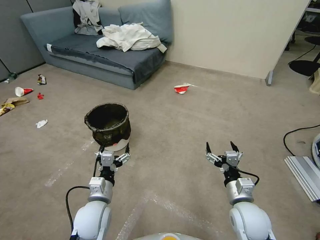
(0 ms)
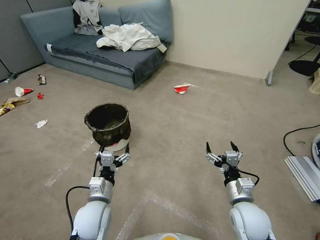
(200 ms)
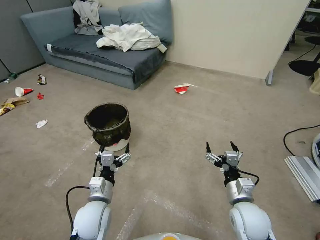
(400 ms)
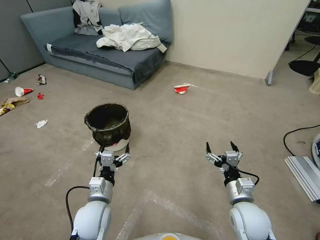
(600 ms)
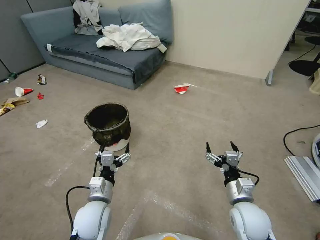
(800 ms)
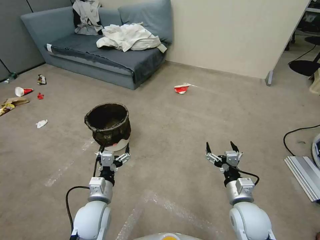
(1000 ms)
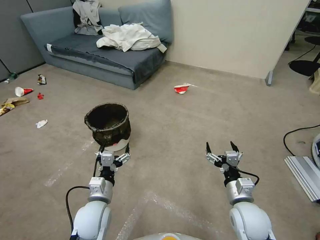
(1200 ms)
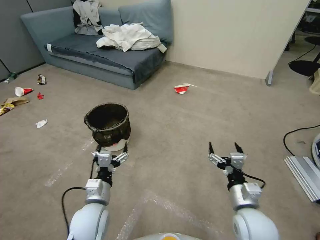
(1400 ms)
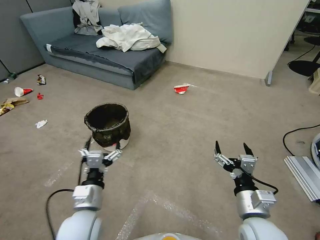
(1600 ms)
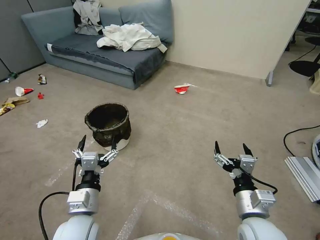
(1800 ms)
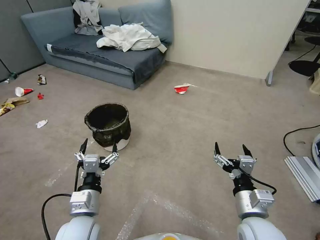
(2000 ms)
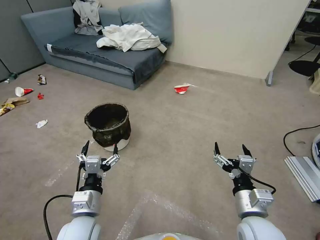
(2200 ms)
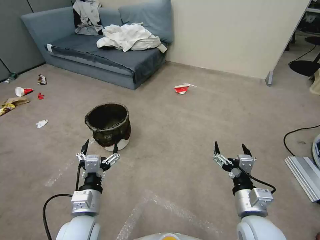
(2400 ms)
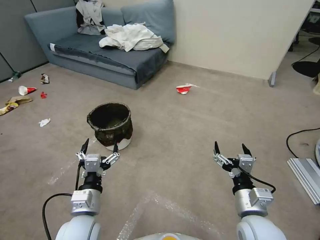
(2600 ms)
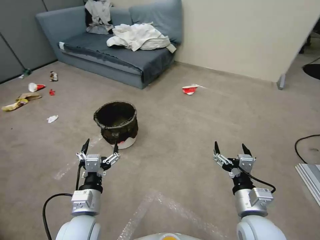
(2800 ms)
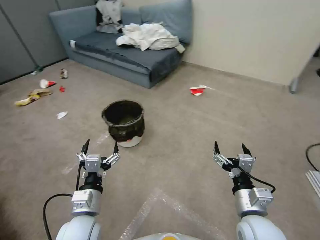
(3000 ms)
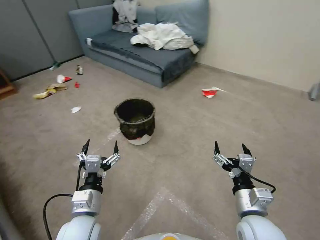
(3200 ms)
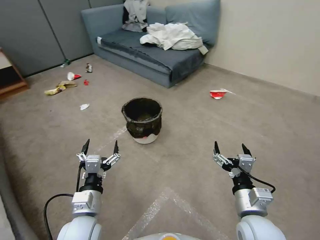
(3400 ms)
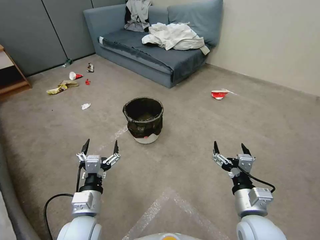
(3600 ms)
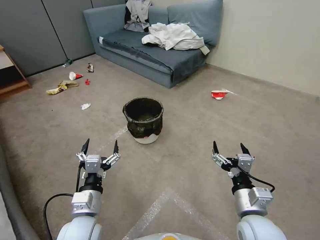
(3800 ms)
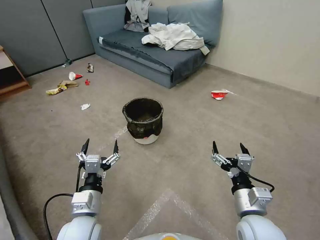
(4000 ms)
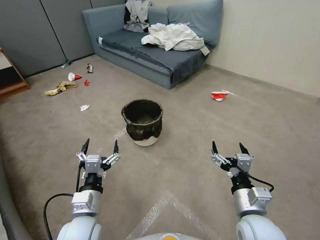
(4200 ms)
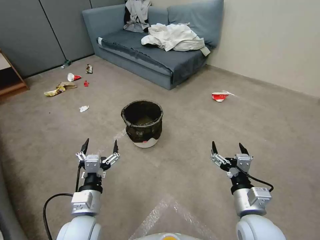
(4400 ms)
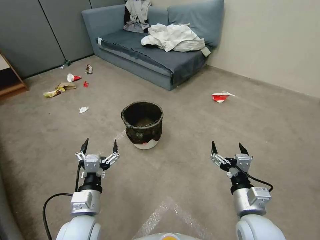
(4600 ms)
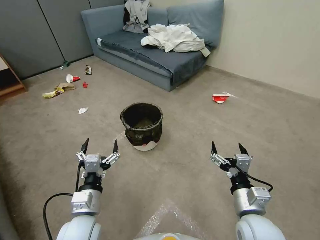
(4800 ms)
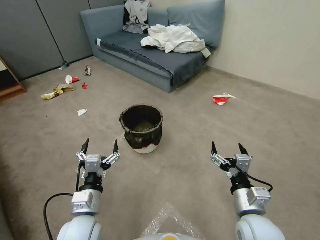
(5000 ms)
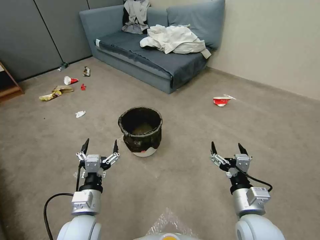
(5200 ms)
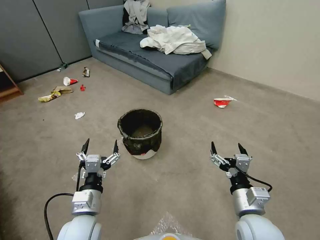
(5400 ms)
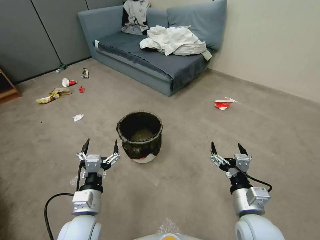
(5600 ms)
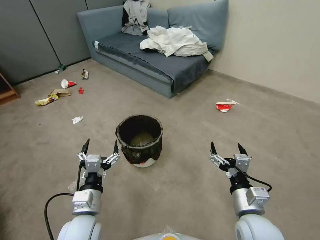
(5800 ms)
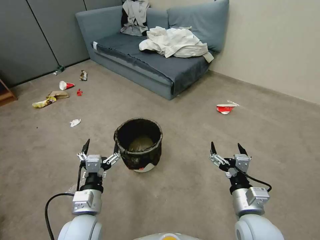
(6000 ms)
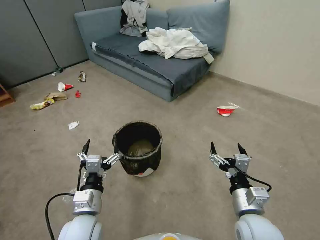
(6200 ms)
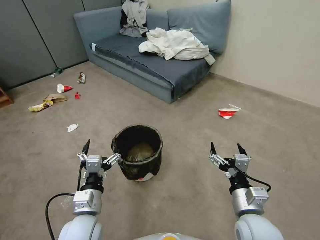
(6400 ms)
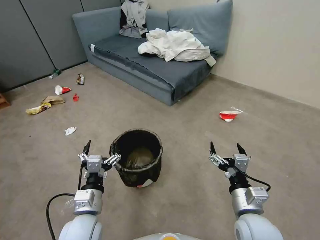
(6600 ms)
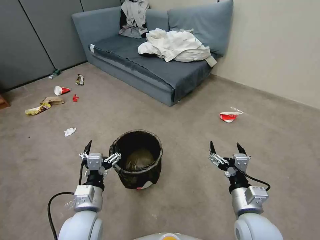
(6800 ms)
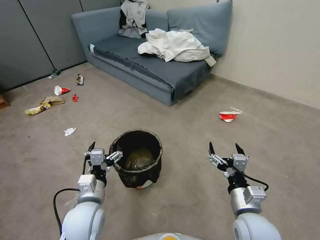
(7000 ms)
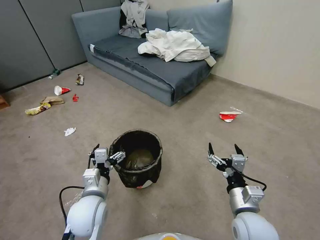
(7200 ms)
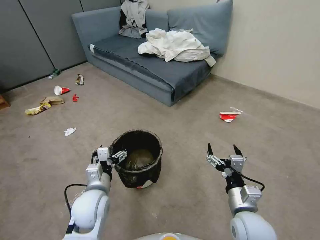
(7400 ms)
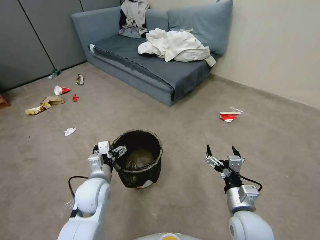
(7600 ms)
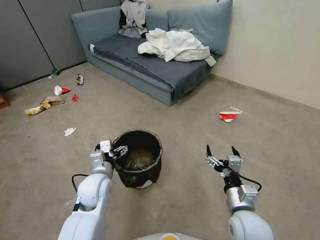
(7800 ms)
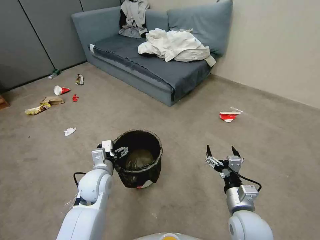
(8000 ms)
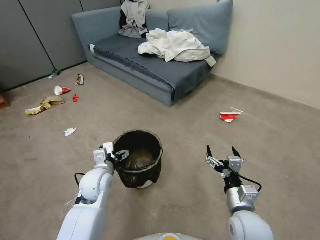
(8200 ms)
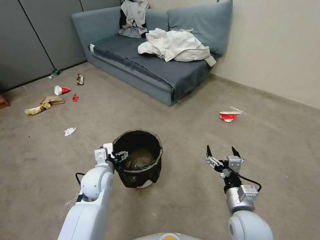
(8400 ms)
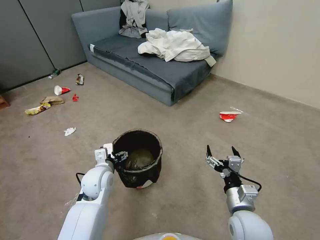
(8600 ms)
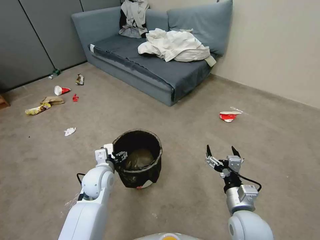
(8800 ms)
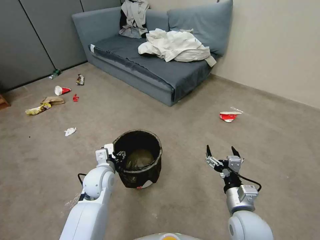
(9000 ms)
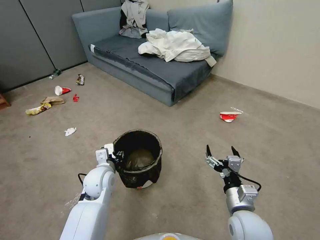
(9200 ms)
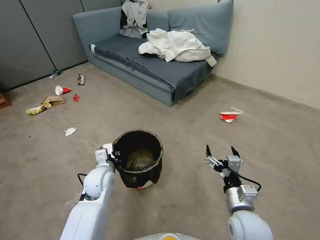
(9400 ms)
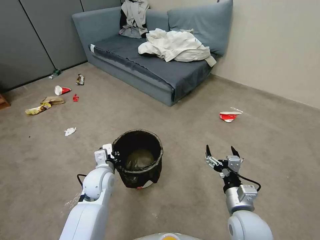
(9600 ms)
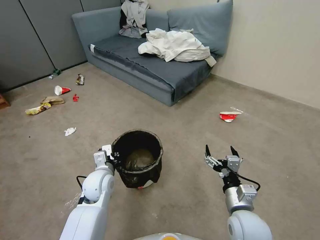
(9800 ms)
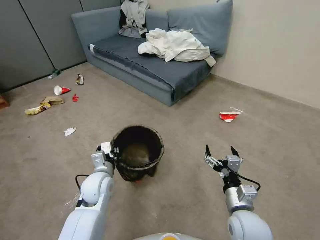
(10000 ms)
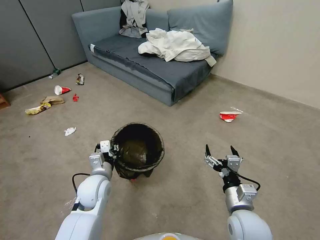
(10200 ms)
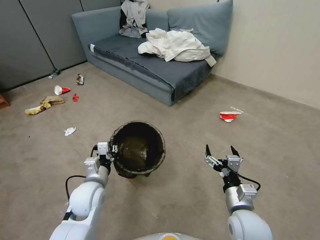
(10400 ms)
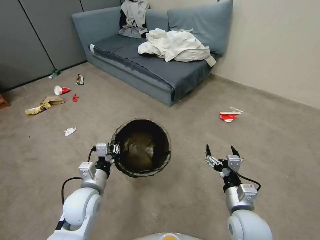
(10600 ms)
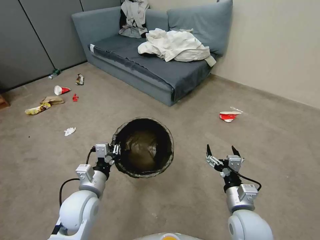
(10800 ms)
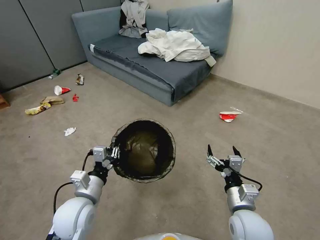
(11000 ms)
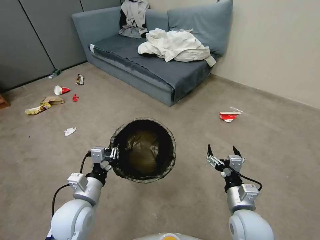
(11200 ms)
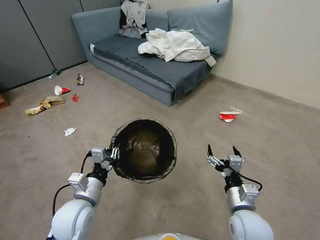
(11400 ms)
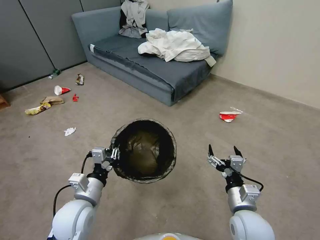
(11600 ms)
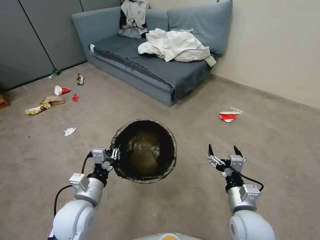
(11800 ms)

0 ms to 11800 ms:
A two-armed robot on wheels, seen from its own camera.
Task of the whole recording: Pick up the trash can from the floor.
1400 ms to 3000 ms: The left gripper shifts by roughly 5 cm.
6000 ms to 7400 ms: The left gripper is displaced forward by about 5 cm.
7400 ms to 8800 ms: The left gripper heads forward, covering roughly 5 cm.
8800 ms to 10400 ms: The left gripper is displaced backward by about 5 cm, and closes.
10400 ms to 11800 ms: The left gripper shifts some 5 cm backward.

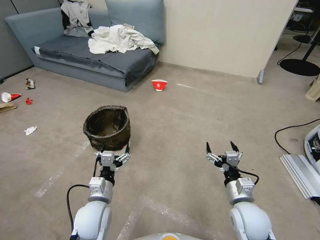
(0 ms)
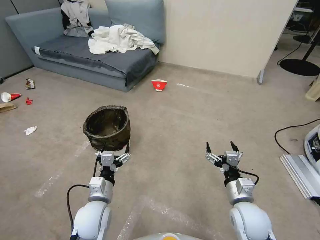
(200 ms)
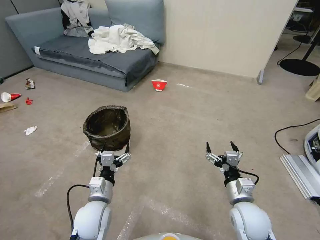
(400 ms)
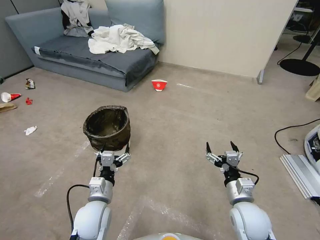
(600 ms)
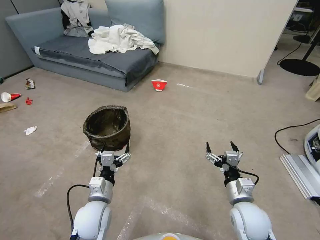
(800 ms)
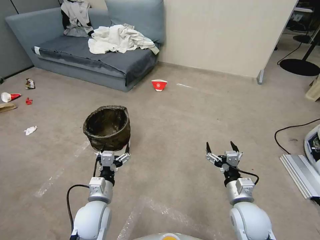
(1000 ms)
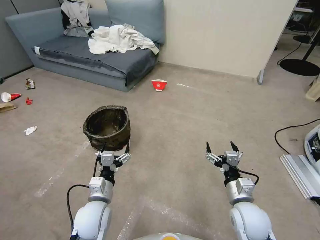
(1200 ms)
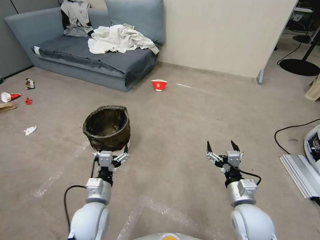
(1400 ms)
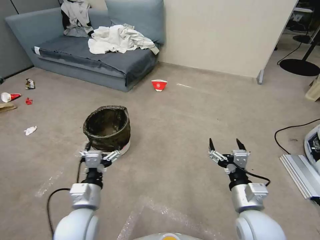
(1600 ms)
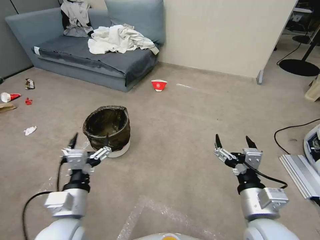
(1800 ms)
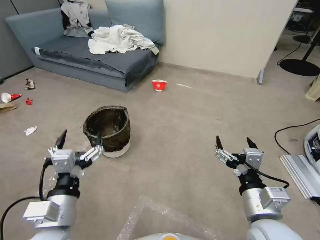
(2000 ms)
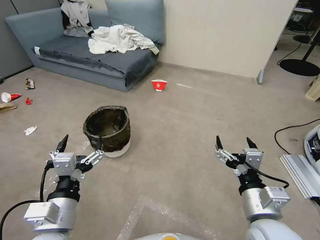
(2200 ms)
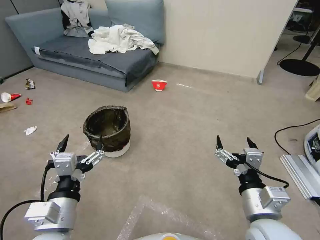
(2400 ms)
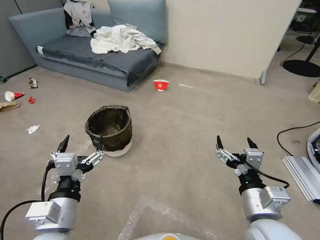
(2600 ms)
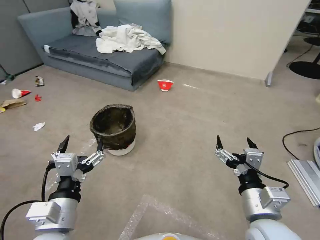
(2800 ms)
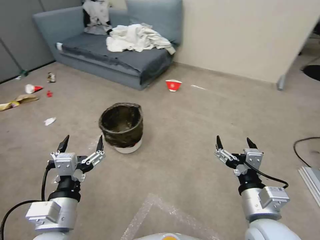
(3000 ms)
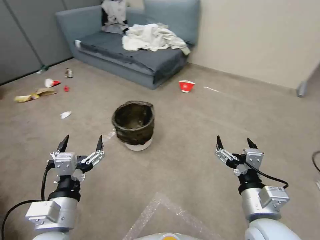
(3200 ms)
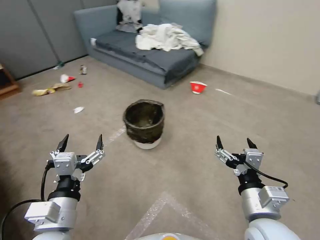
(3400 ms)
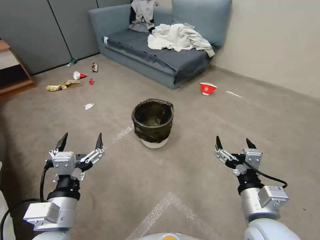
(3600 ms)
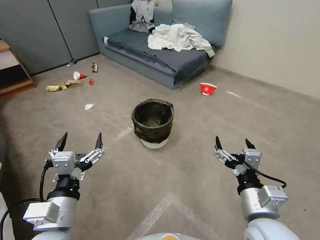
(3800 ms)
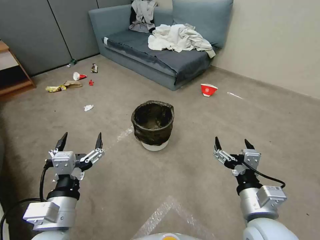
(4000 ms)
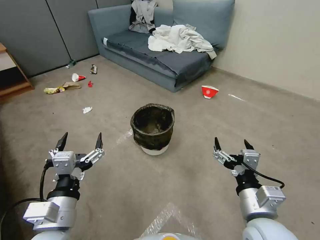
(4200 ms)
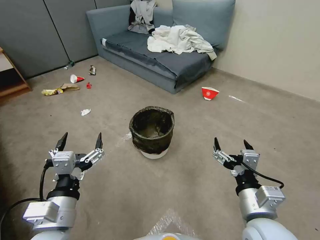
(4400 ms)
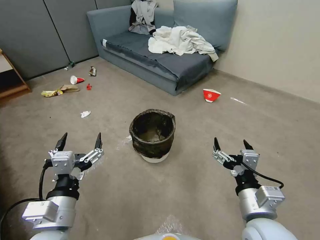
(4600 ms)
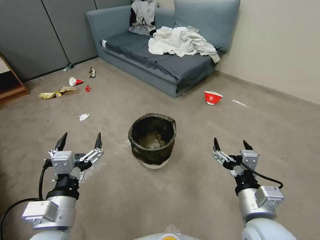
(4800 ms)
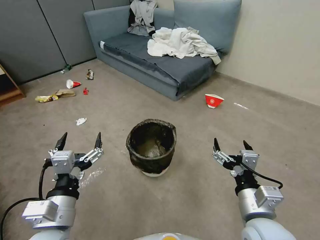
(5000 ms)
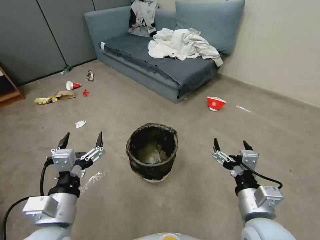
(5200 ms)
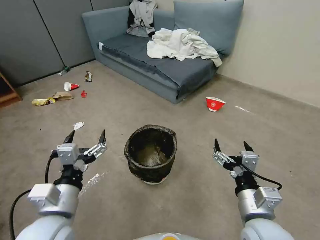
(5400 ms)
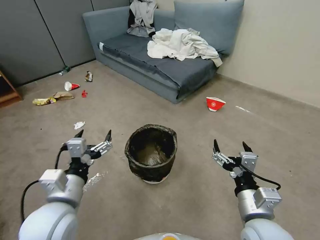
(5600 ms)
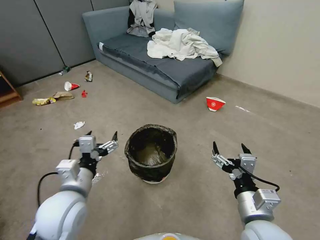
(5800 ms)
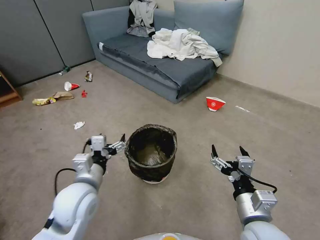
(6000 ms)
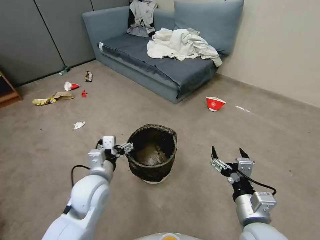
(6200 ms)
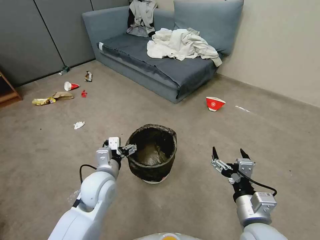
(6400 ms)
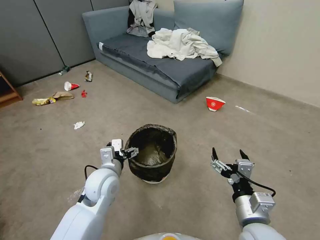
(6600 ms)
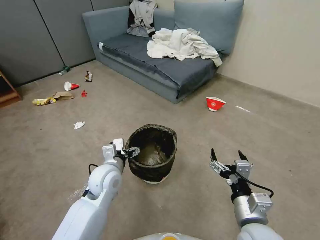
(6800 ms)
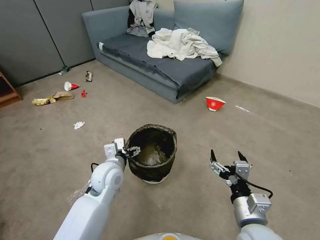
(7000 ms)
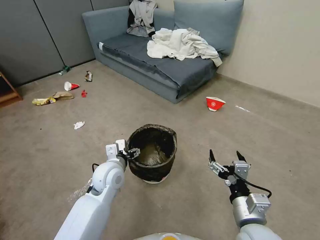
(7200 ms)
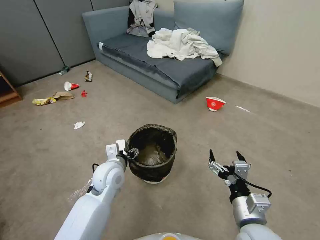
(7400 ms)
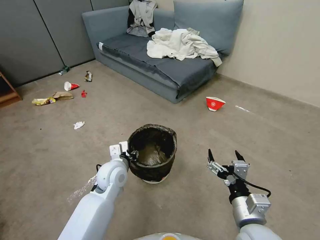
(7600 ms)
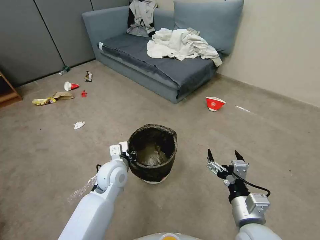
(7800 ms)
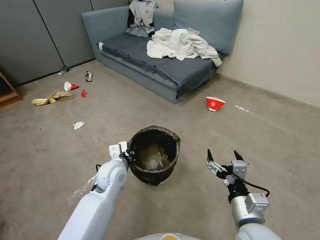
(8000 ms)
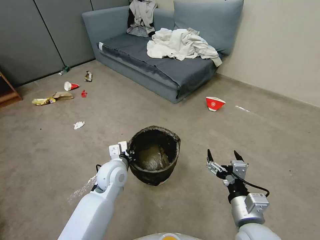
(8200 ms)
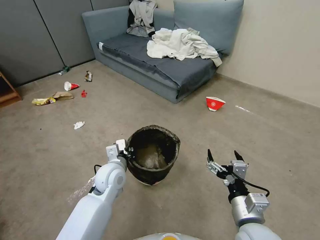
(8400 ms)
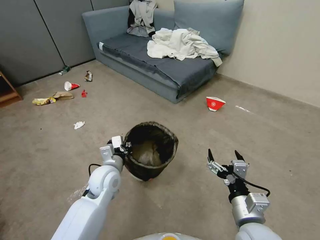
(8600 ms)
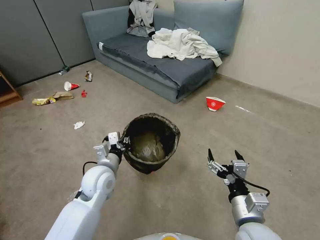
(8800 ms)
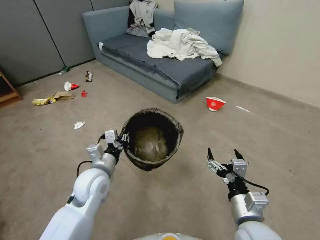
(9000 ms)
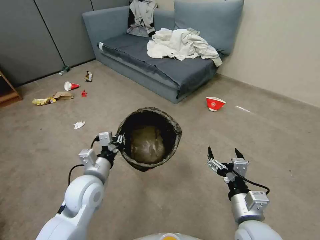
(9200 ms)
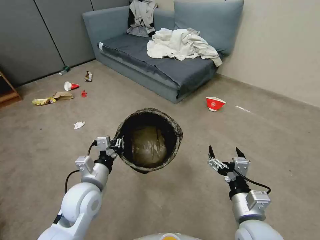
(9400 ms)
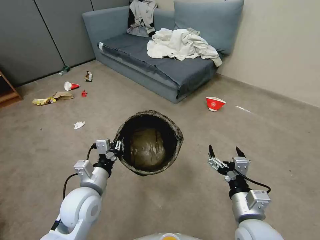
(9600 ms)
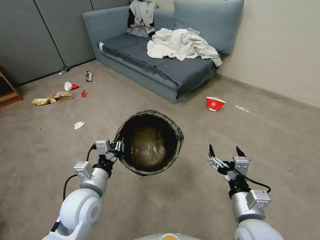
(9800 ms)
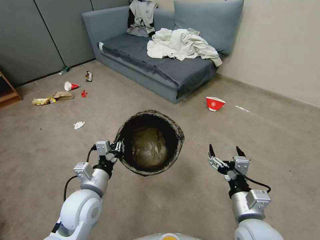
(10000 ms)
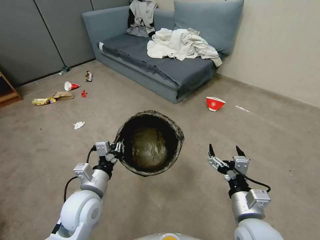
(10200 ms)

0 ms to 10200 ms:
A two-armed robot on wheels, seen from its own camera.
Task of the whole recording: Pick up the trash can from the floor.
1400 ms to 3000 ms: Both grippers travel together upward and backward, about 15 cm.
4400 ms to 5800 ms: The left gripper goes some 10 cm forward.
5800 ms to 7200 ms: The left gripper heads forward, downward and to the right, covering approximately 15 cm.
7200 ms to 8800 ms: The left gripper closes.
8800 ms to 10200 ms: The left gripper travels backward by roughly 10 cm.
